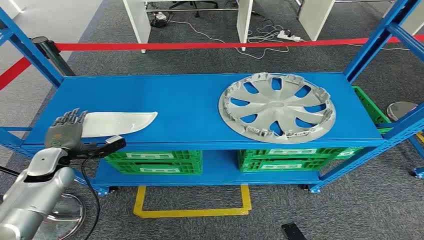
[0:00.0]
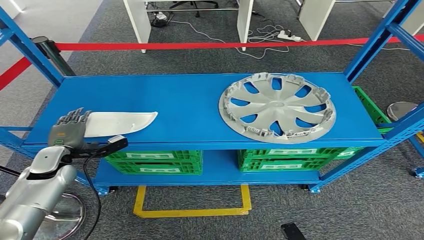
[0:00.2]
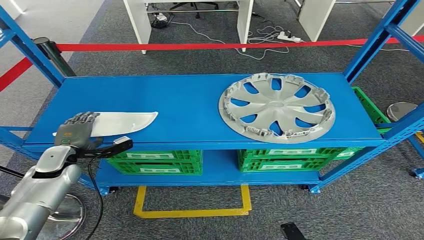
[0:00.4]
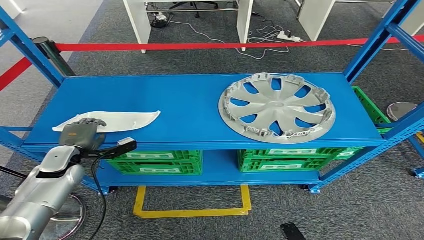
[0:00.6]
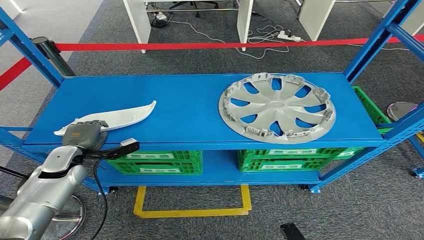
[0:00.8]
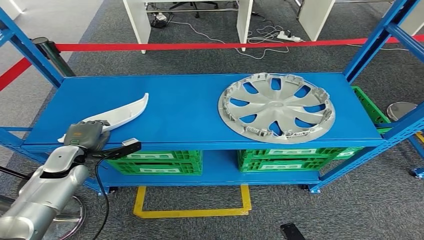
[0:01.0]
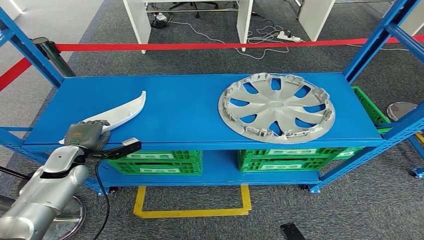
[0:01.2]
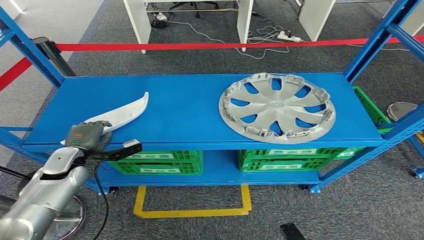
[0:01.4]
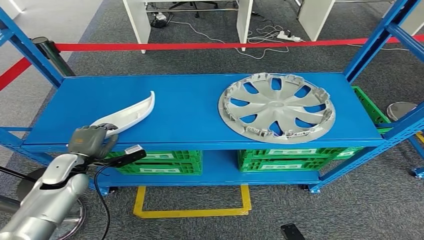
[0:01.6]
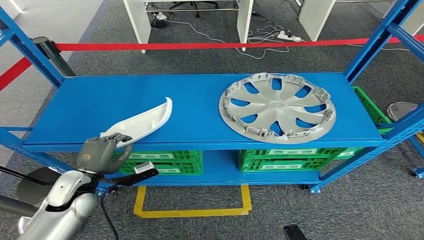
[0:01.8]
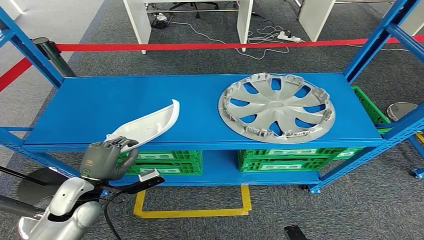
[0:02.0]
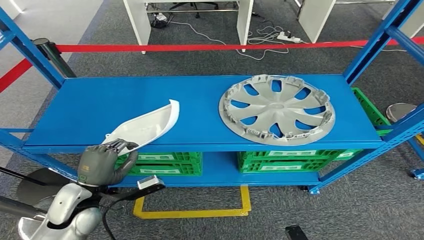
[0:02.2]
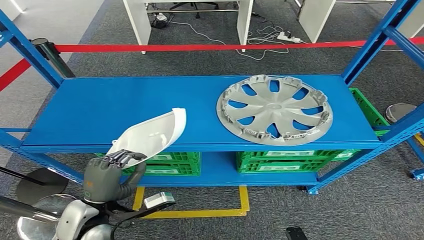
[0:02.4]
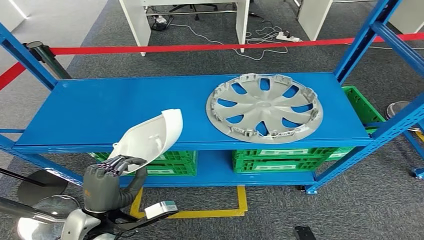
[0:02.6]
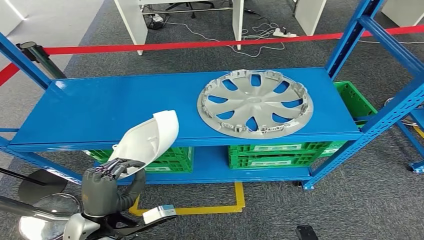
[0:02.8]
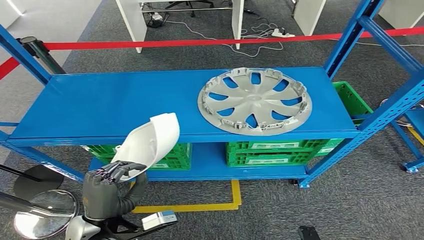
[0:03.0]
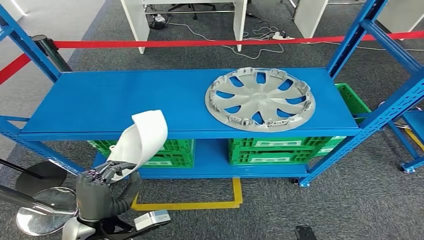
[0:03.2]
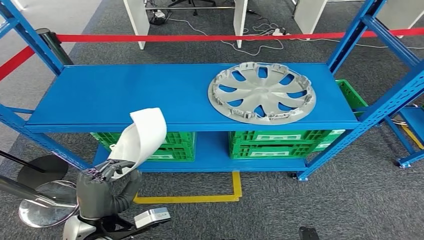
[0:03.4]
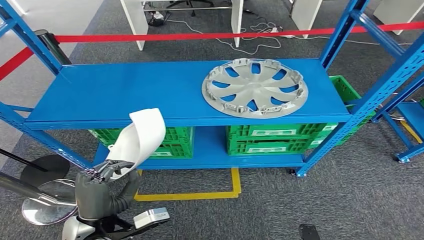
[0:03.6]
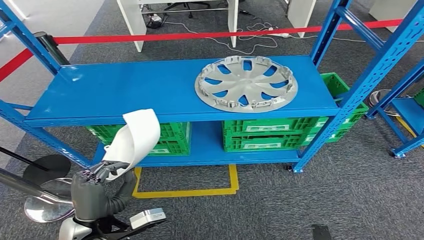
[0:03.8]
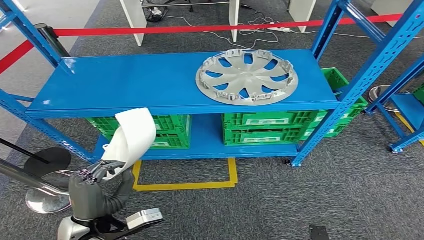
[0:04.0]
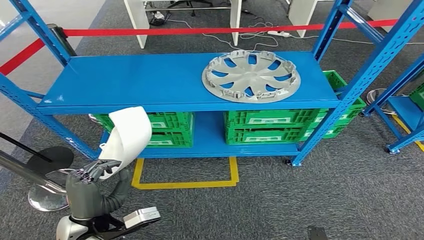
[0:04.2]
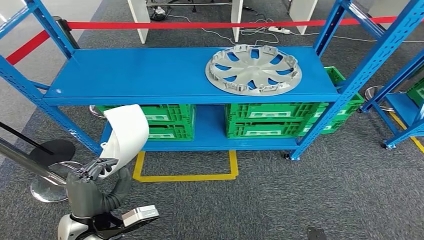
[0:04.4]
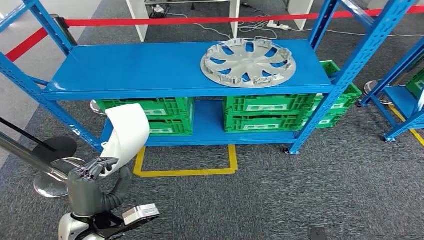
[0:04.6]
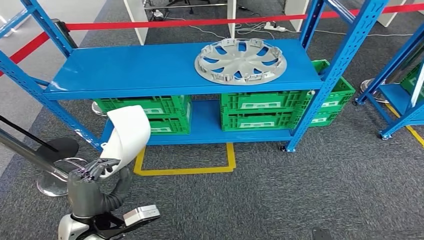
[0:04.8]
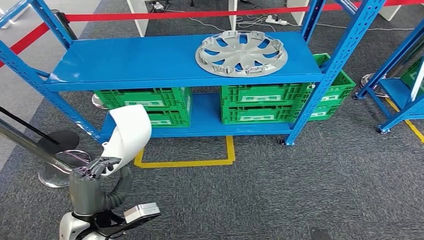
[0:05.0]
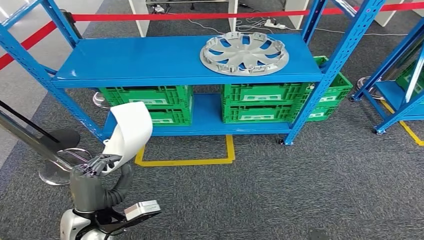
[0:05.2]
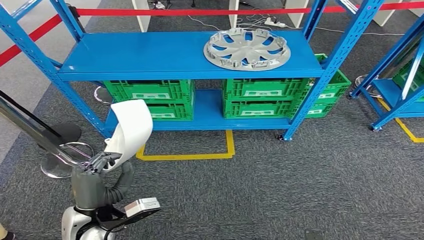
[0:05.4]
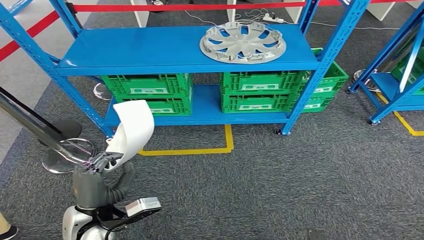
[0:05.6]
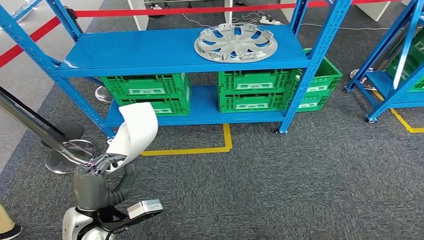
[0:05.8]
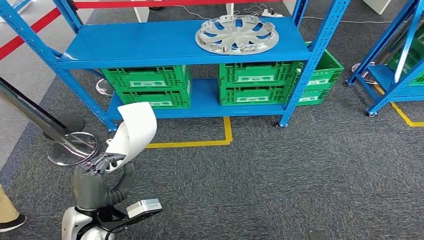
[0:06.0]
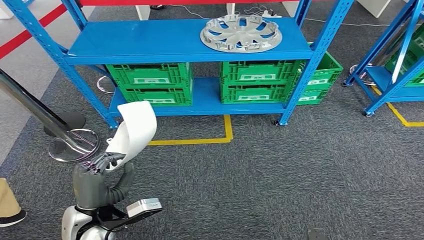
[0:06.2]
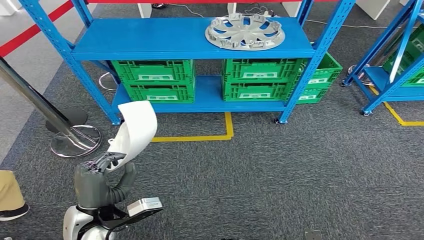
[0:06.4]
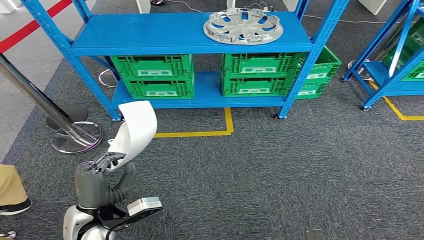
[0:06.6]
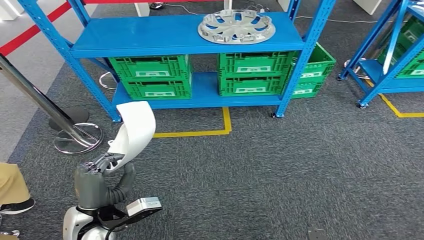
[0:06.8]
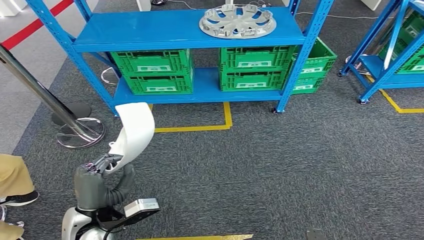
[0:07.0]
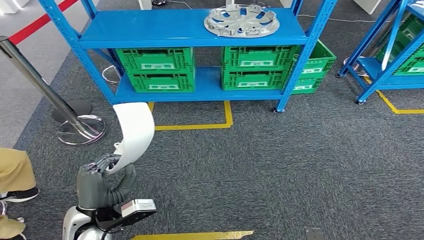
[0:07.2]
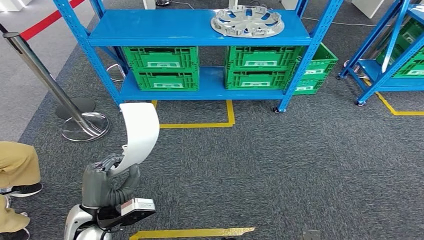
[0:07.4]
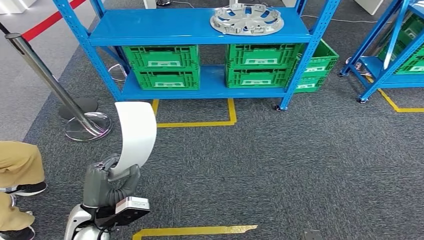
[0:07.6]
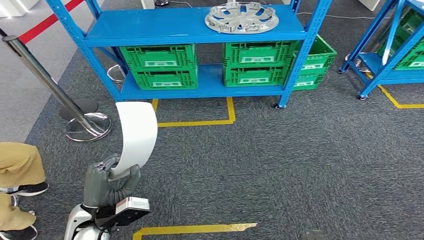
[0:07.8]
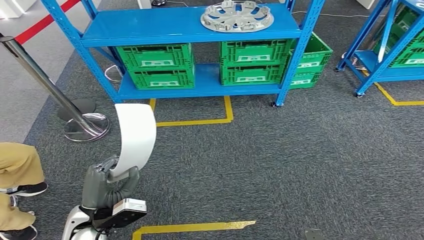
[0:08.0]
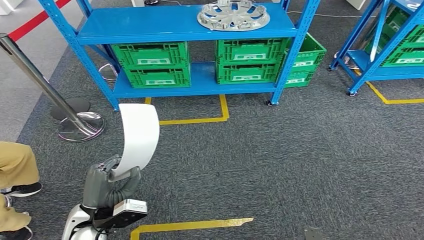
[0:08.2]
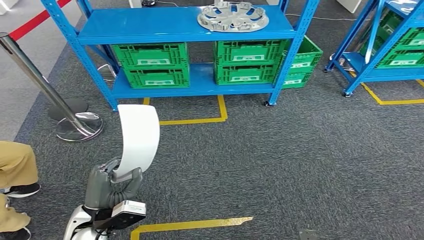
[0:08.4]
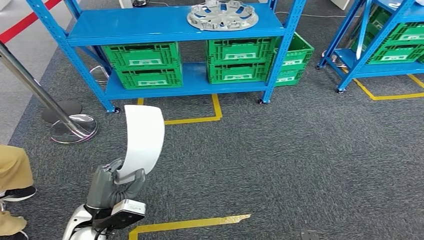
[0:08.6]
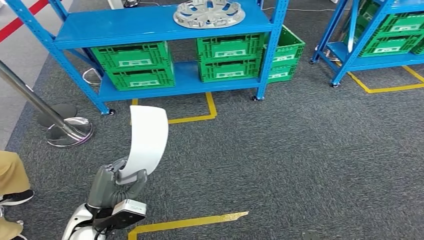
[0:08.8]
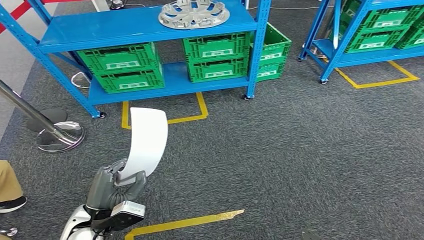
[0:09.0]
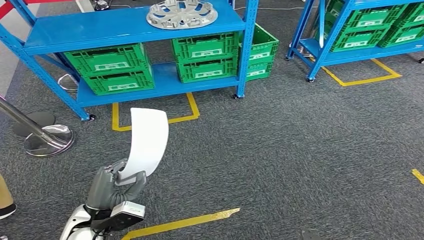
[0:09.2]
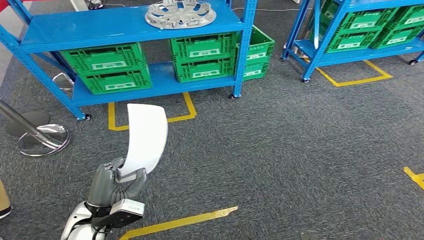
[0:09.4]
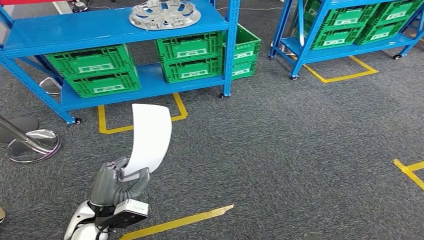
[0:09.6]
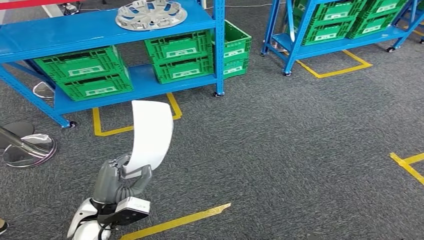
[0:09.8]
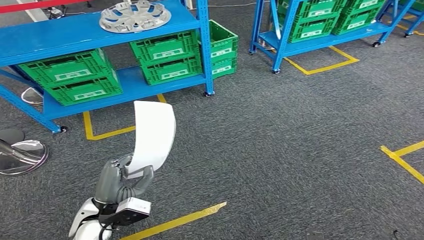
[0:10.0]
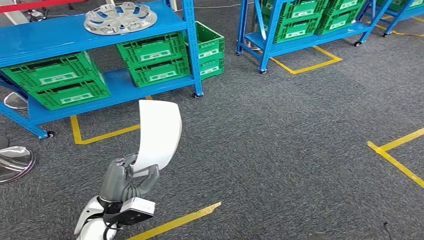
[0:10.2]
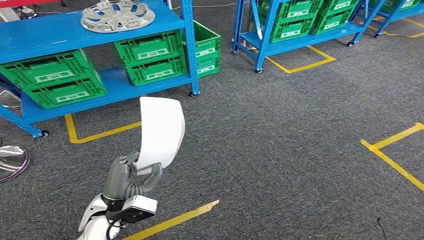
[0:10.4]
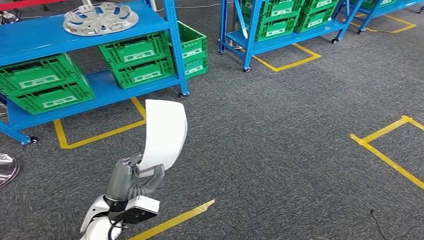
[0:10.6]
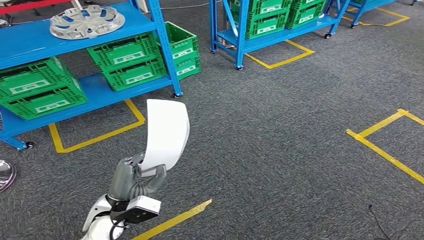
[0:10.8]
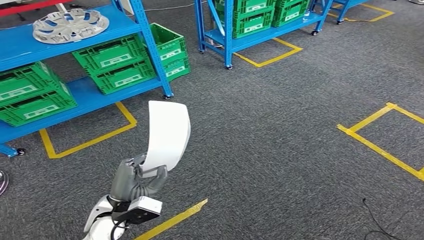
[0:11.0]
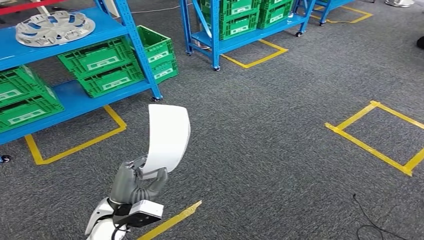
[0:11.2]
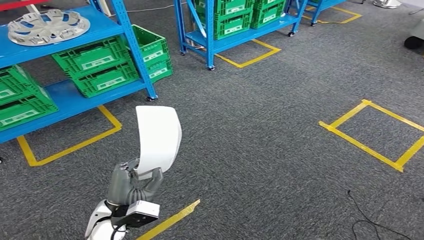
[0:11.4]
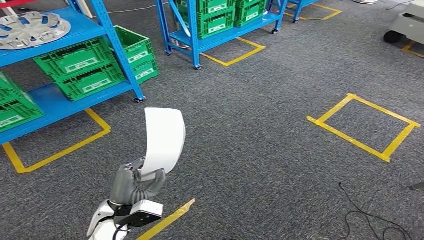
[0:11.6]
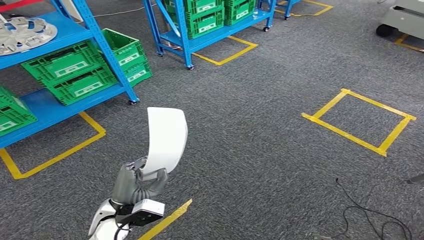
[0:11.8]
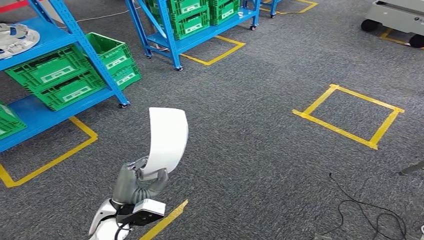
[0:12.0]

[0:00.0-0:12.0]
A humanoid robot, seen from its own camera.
Step, 0:00.0 to 0:04.2: Pick up the small component from the shelf.

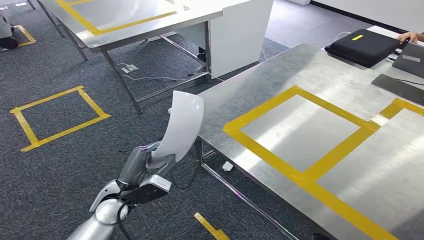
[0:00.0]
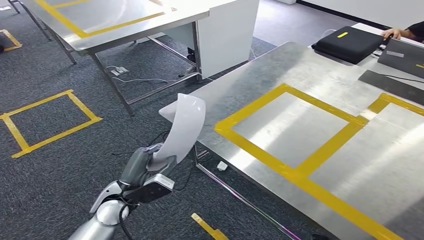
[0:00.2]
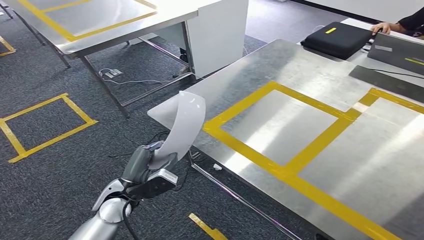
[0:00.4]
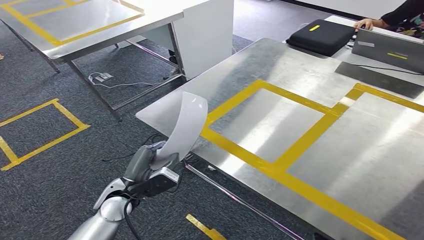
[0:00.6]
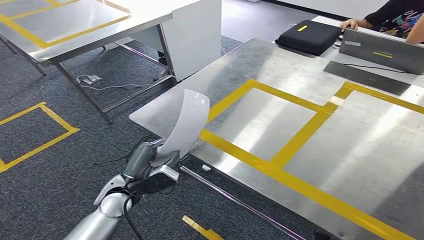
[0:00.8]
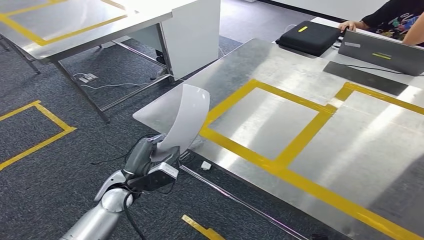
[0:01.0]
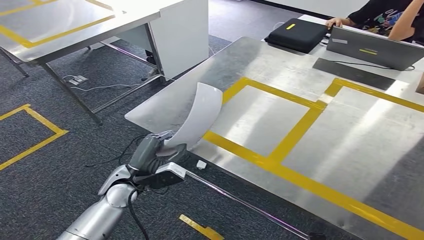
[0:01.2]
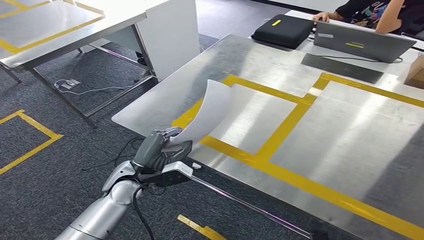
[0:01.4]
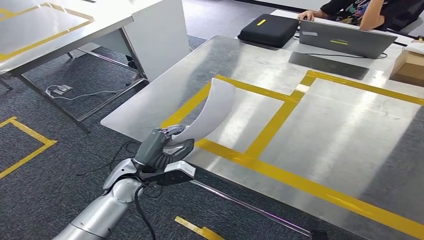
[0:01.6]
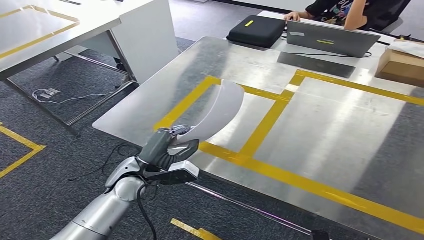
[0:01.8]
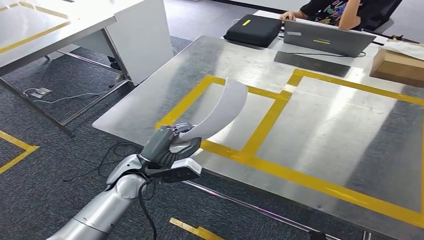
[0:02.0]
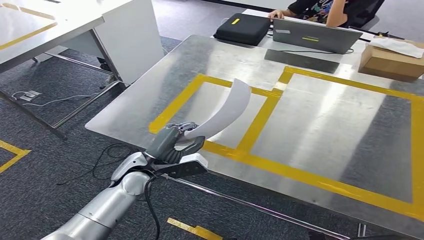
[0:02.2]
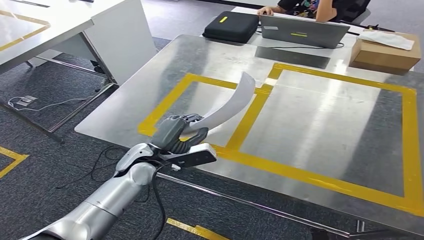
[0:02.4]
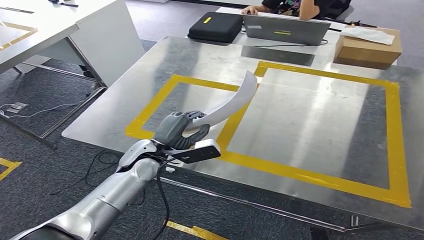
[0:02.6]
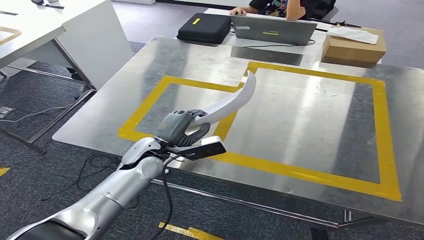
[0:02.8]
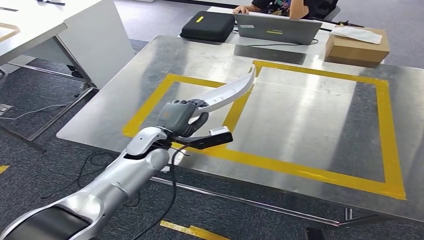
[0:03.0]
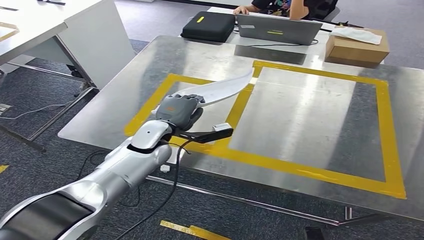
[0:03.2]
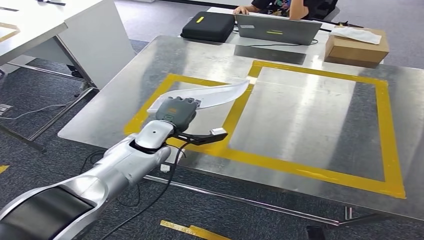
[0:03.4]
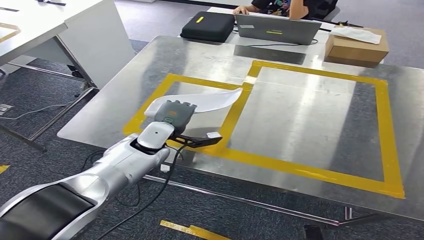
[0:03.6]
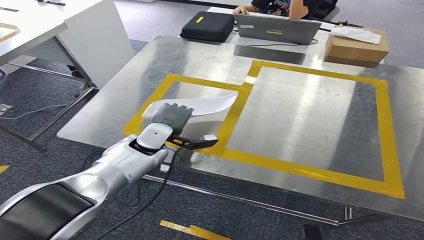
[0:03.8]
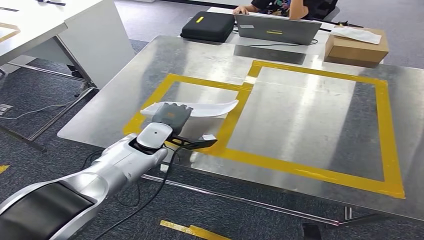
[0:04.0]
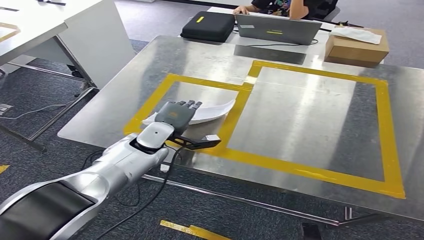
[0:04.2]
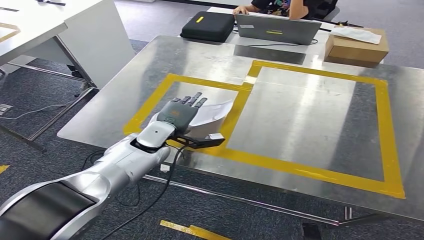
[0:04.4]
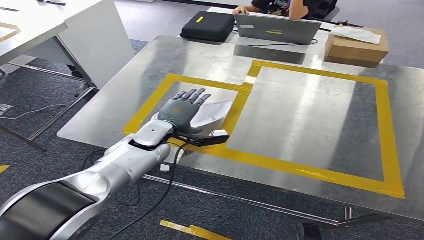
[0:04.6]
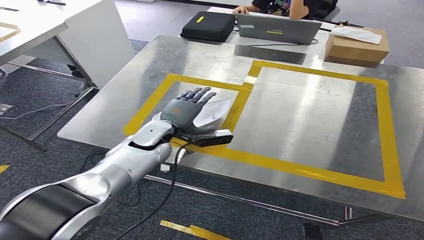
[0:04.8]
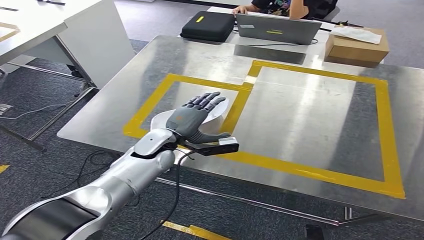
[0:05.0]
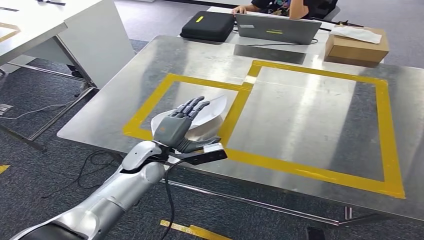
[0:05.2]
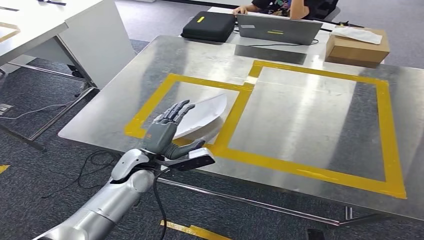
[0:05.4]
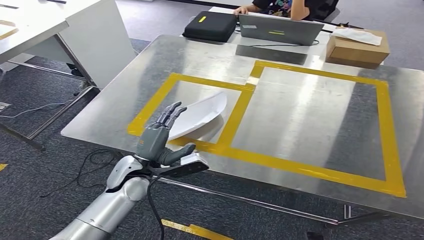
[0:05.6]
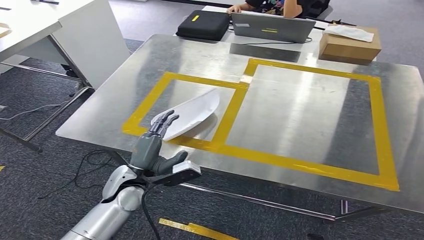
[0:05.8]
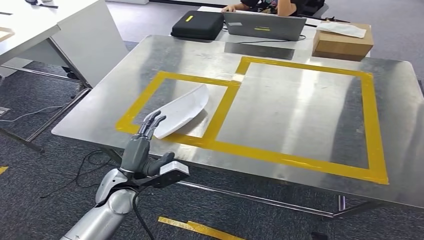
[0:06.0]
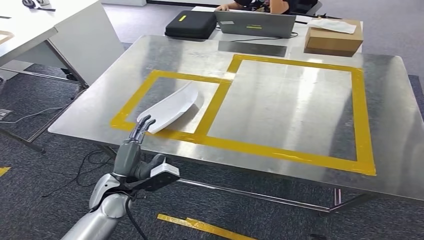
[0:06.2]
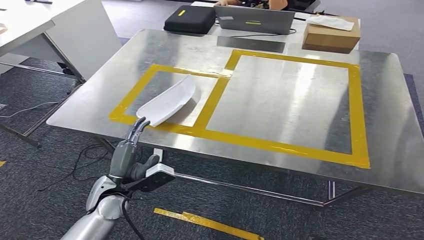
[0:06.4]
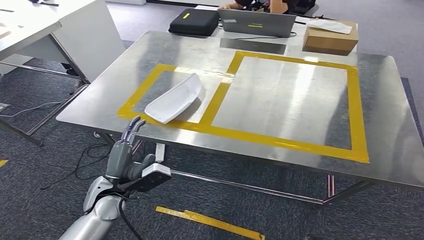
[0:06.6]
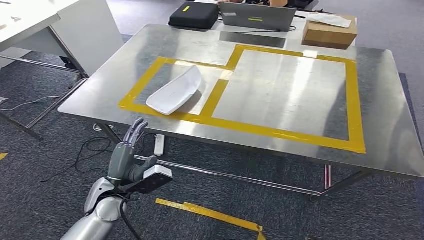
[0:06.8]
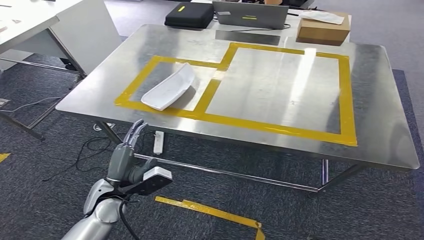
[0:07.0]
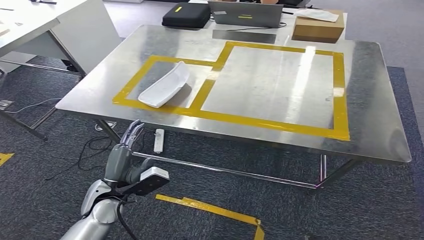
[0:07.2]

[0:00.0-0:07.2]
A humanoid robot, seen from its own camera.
Step, 0:01.6 to 0:06.8: Insert the small component into the corresponding slot on the workbench.
